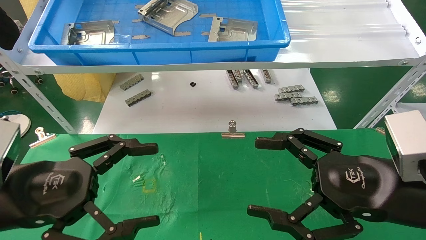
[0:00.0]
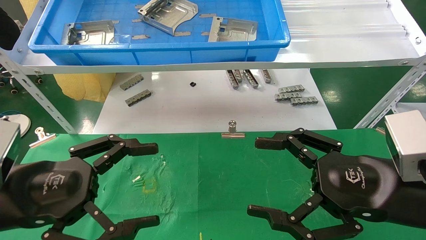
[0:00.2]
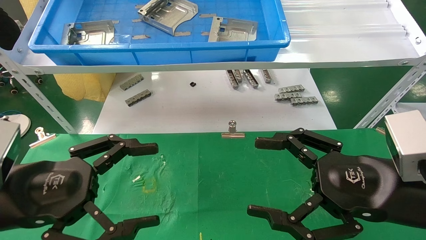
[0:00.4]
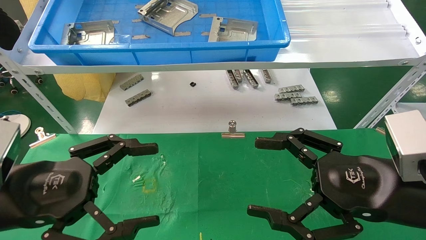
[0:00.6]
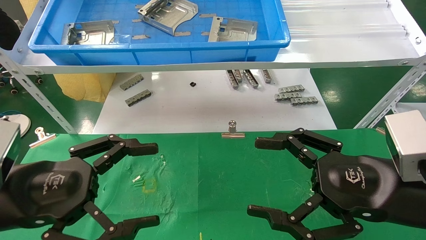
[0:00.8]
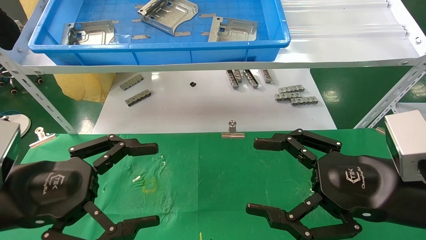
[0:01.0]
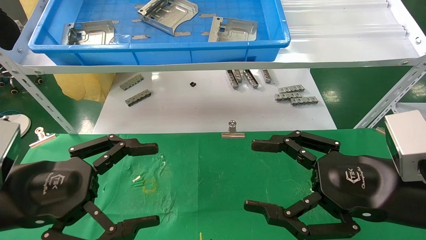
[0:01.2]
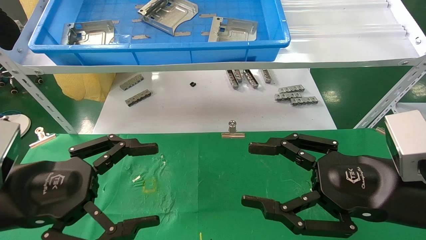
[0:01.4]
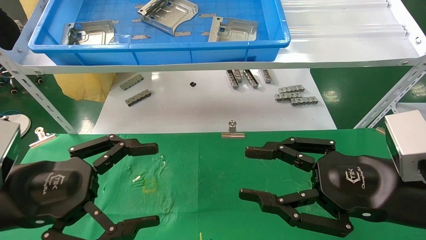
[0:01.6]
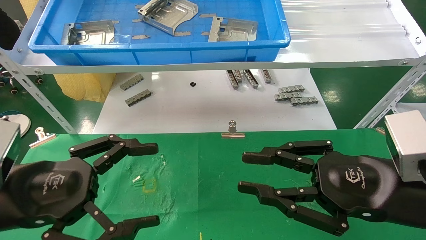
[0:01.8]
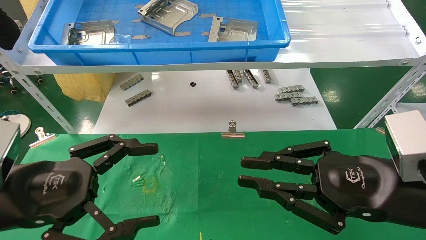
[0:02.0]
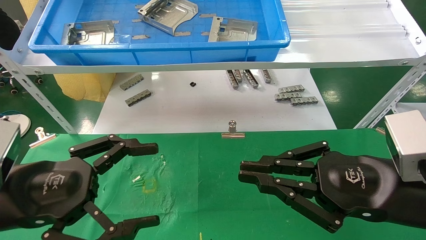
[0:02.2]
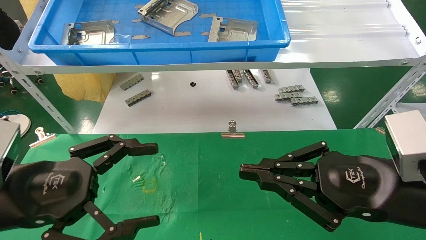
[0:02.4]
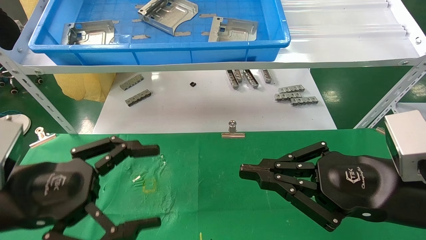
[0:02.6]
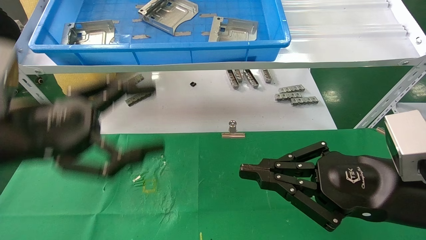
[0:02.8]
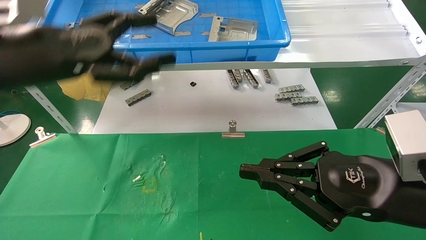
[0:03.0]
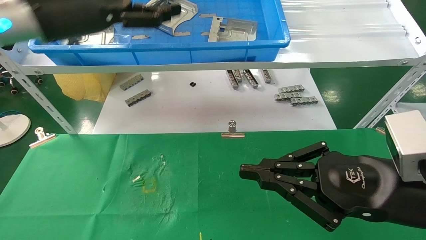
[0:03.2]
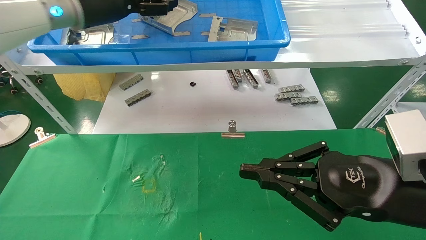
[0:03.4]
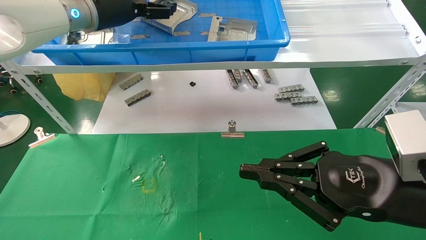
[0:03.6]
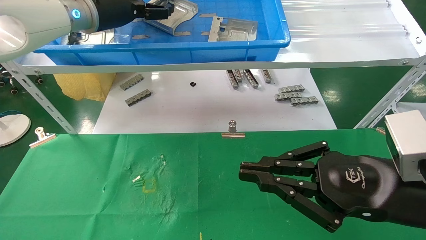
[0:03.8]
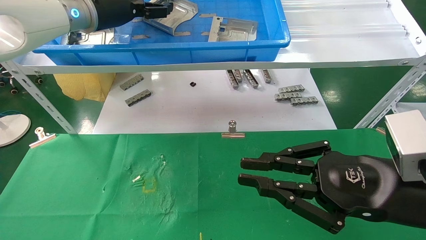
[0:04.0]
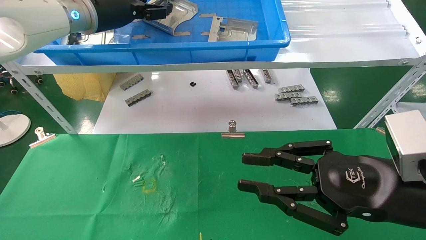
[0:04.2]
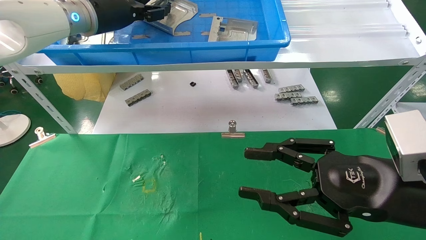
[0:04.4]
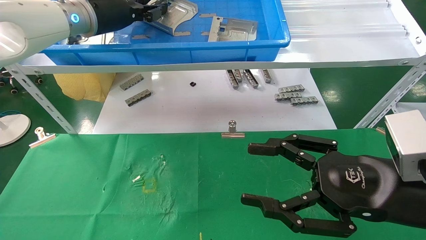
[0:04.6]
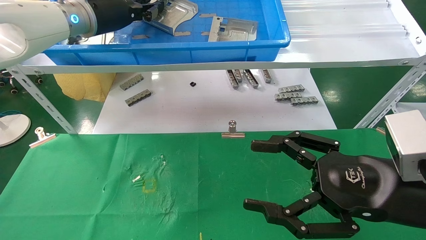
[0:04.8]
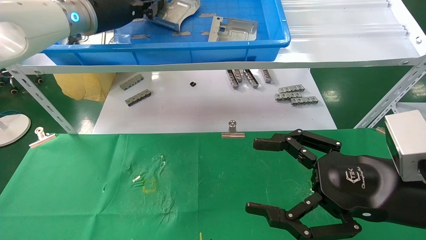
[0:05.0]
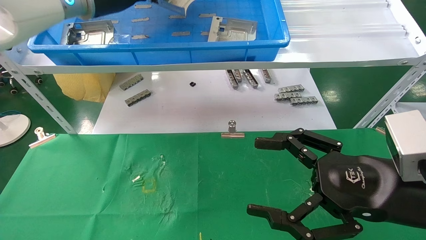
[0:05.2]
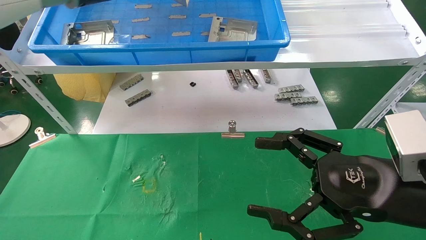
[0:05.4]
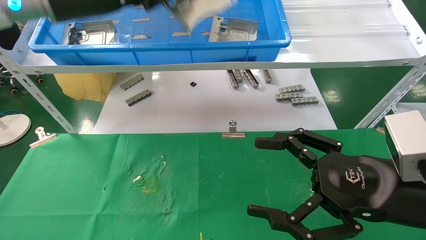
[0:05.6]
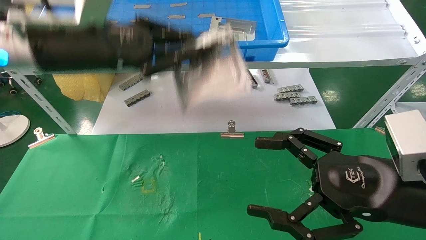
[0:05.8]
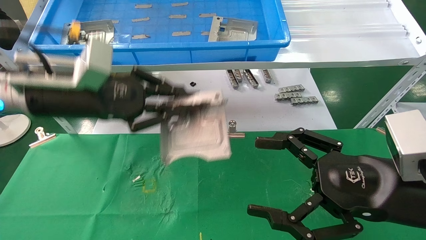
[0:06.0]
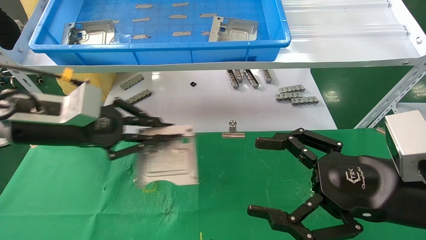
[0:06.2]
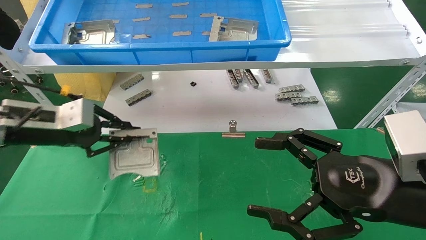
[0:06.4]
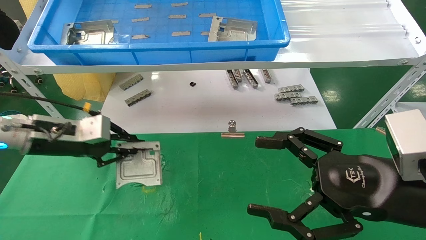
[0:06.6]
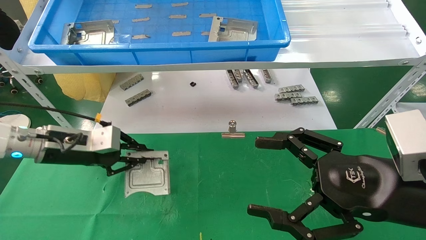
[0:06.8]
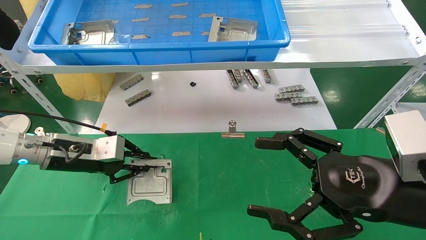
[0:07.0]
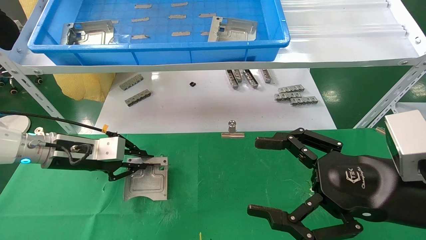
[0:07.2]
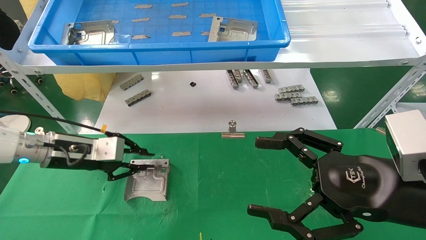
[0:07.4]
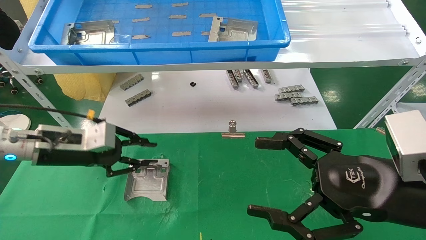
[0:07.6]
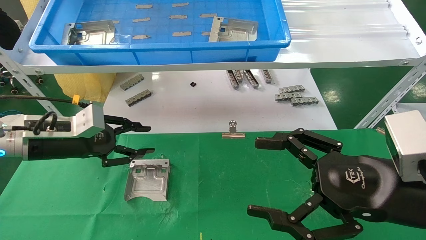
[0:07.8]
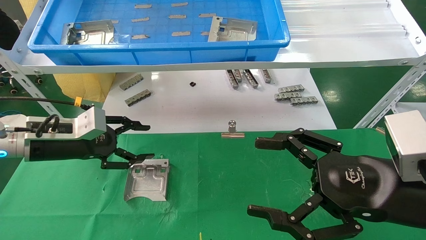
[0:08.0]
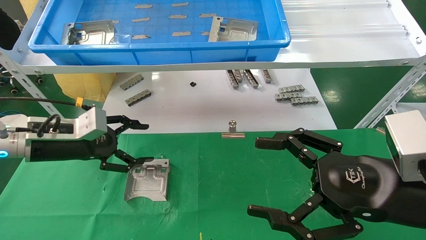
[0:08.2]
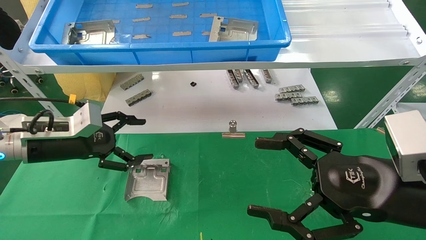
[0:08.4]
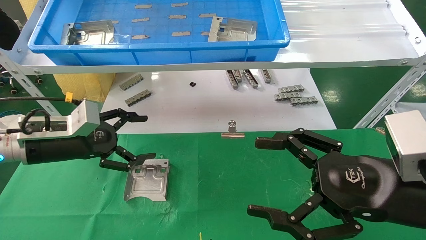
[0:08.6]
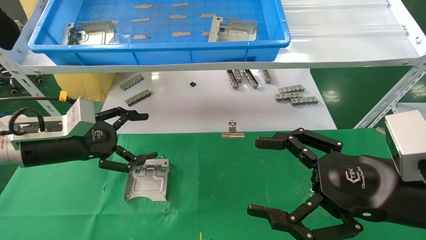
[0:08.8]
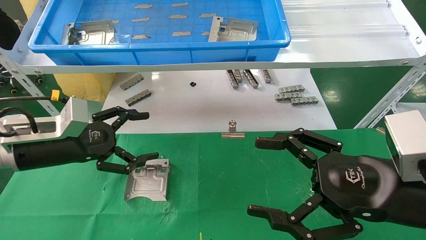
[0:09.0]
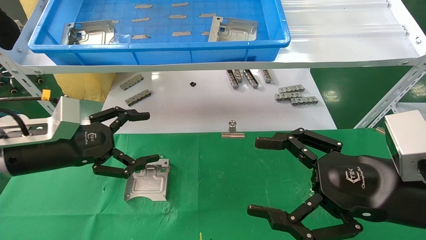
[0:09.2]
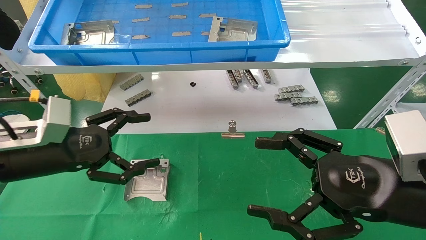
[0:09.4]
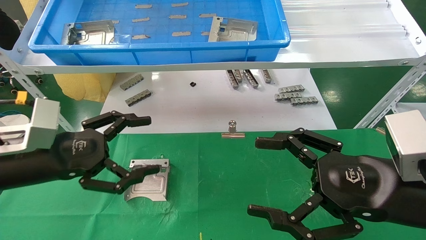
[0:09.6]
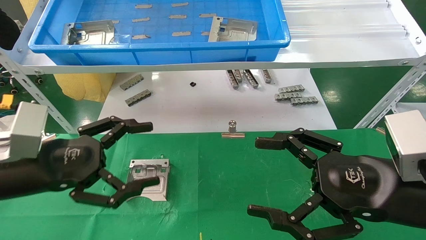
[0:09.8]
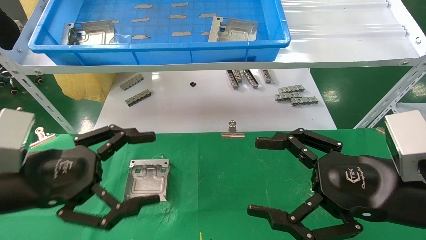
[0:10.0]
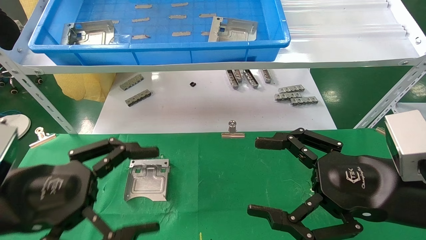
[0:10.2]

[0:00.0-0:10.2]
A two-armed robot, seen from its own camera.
Task of the whole recording: use the mechanical arm to pick up the parts and place them on the table.
Step, 0:03.0 to 0:04.8: Pick up the hard drive bracket from the feeding area.
Step, 0:05.0 to 0:07.2: Place the hard drive bracket into the box.
0:00.0 to 0:01.4: Neither gripper changes place.
0:01.4 to 0:03.0: The left gripper moves upward and forward, some 20 cm, while the right gripper closes its fingers.
0:03.0 to 0:04.4: The left gripper travels forward and upward by approximately 15 cm, and closes.
0:04.4 to 0:05.8: The right gripper opens. Meanwhile the left gripper shifts roughly 15 cm backward and downward, and closes its fingers.
0:05.8 to 0:07.2: The left gripper goes roughly 20 cm downward and to the left.
0:07.2 to 0:08.8: The left gripper changes place by about 5 cm, and opens up.
0:08.8 to 0:10.2: The left gripper moves backward, some 15 cm.

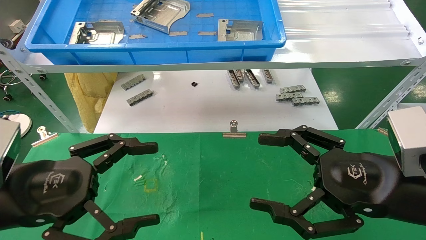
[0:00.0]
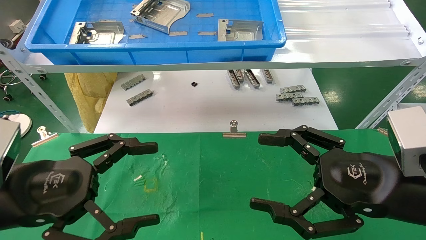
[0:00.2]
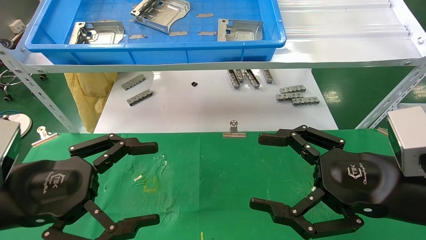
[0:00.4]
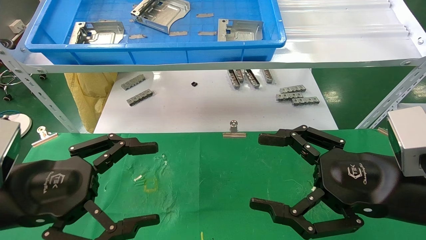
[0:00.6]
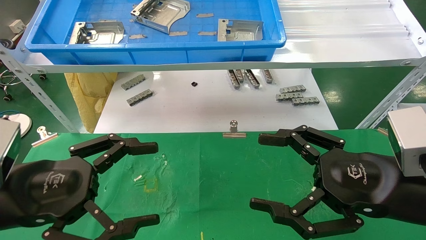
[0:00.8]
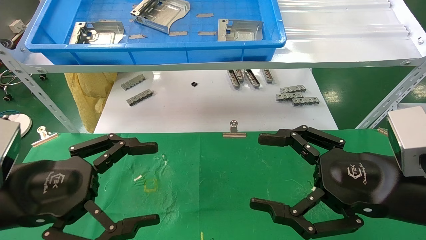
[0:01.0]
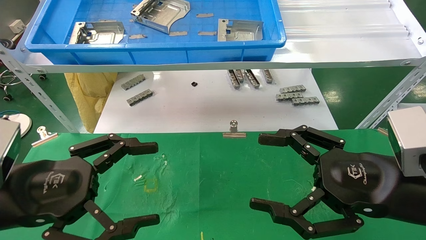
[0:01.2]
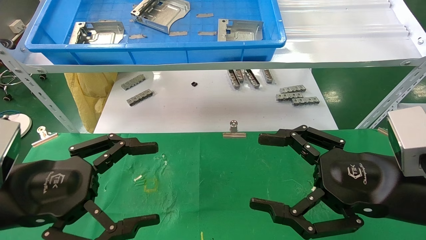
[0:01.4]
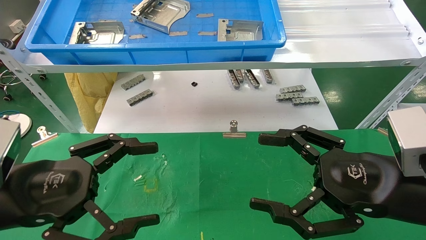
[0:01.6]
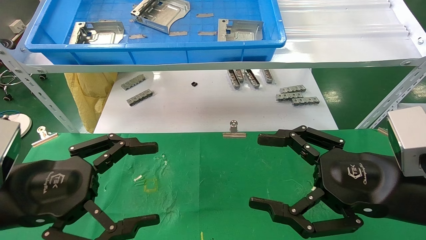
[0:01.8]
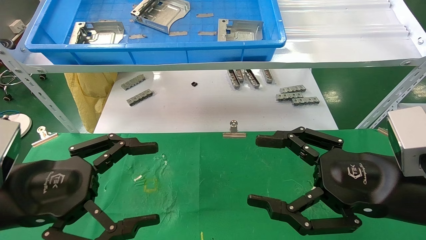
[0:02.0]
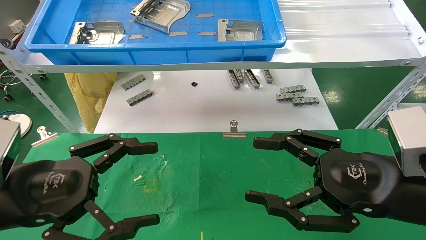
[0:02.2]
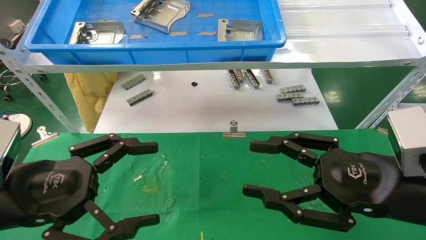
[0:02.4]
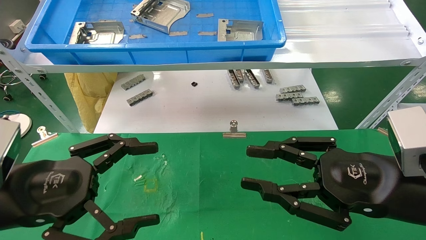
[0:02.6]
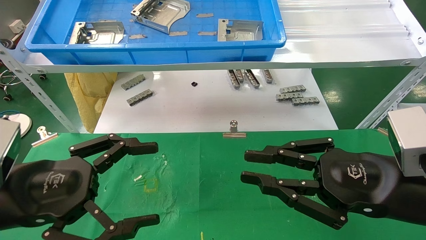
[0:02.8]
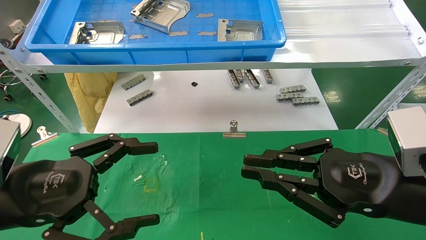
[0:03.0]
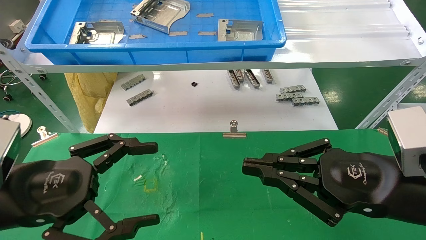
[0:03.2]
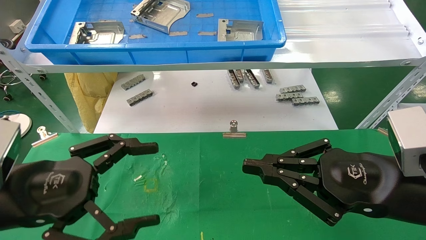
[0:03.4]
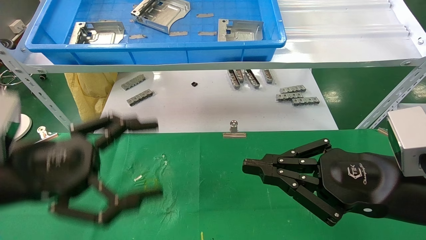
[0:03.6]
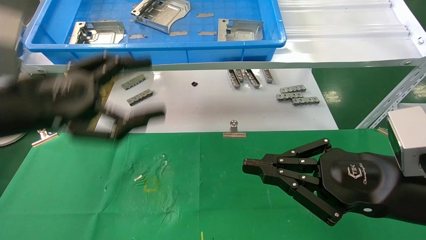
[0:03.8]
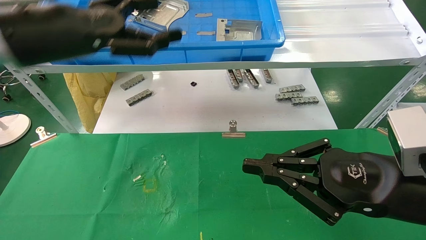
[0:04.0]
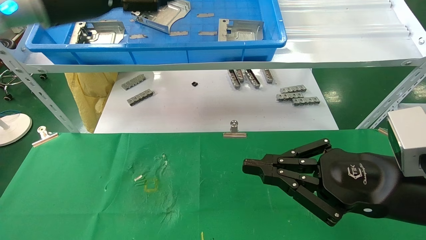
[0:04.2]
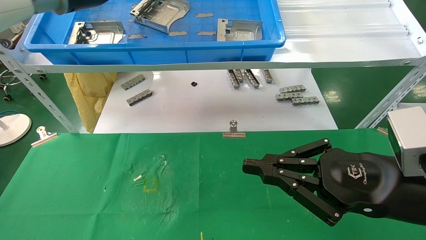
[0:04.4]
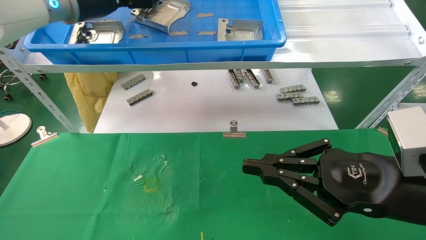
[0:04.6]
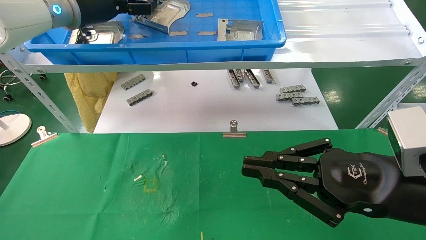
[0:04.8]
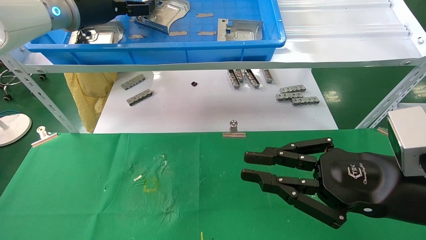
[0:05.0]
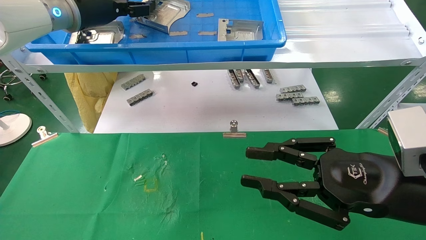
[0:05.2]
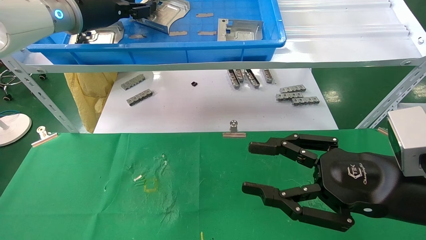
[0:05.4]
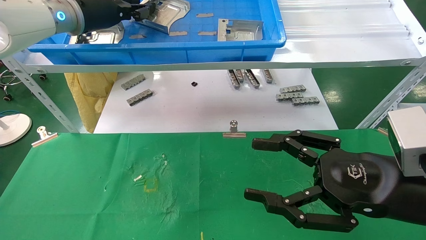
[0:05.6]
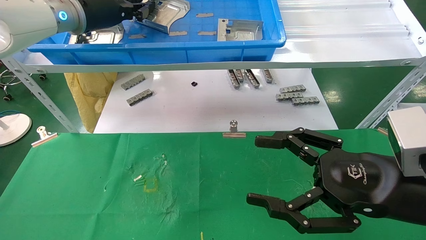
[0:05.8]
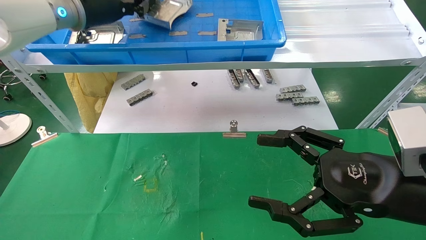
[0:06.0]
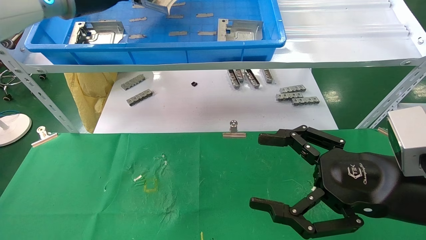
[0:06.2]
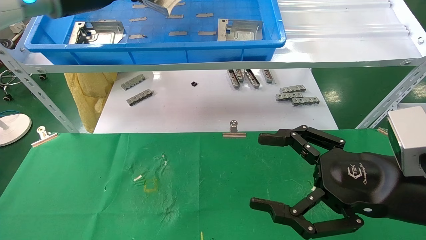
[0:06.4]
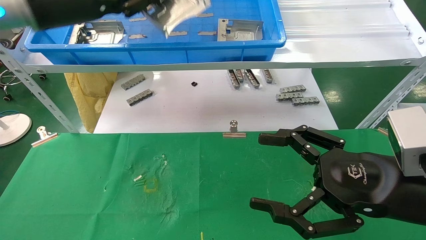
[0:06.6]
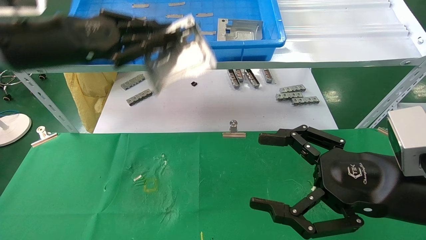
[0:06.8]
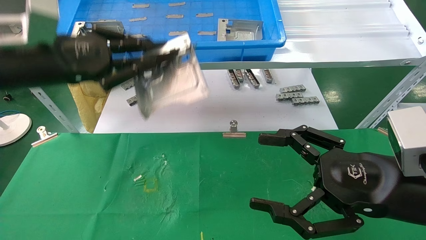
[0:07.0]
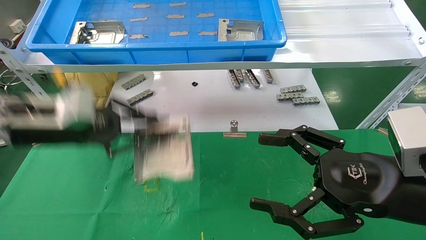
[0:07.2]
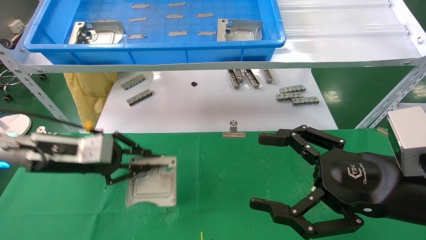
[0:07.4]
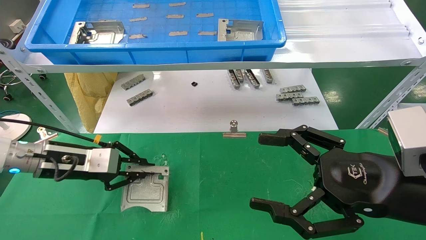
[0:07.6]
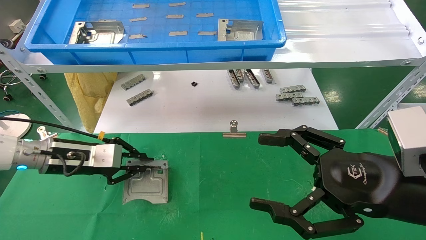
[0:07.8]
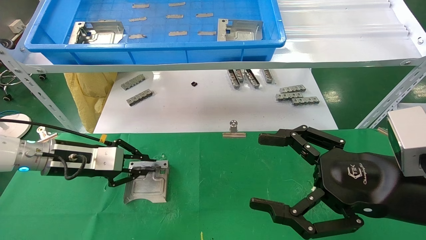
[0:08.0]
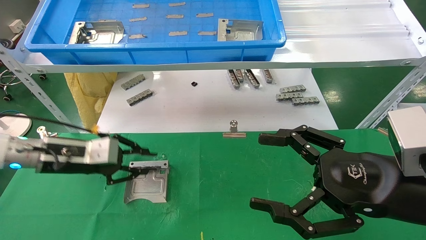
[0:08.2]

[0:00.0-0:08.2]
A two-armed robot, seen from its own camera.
Task of the whole recording: use the mechanical arm to pick up the parts and place them on the table.
Step, 0:03.8 to 0:05.8: Pick up the hard drive bracket from the feeding area.
0:00.0 to 0:01.6: Both grippers stay put.
0:01.6 to 0:03.2: The right gripper closes up.
0:03.2 to 0:05.0: The left gripper moves forward and upward, some 35 cm.
0:05.0 to 0:06.6: The left gripper heads backward, covering some 10 cm, and closes. Meanwhile the right gripper opens its fingers.
0:06.6 to 0:08.2: The left gripper heads downward, covering approximately 25 cm.
